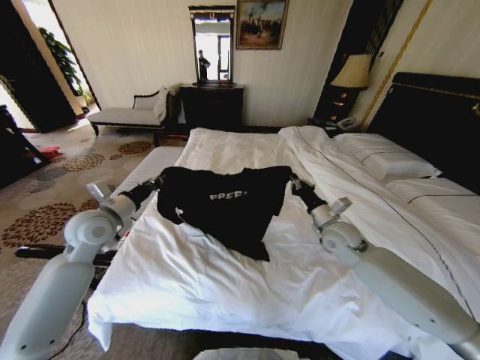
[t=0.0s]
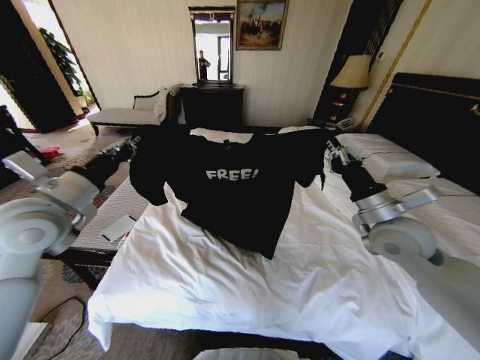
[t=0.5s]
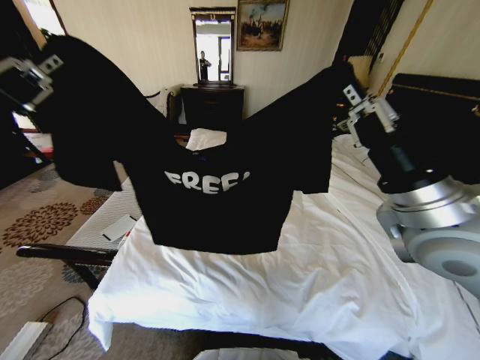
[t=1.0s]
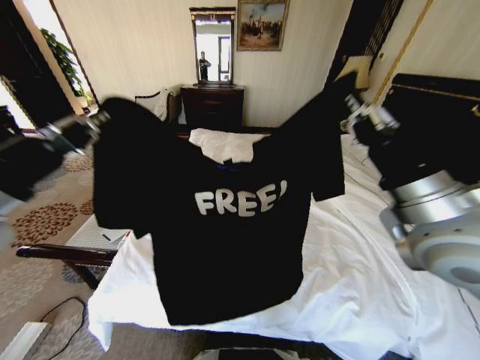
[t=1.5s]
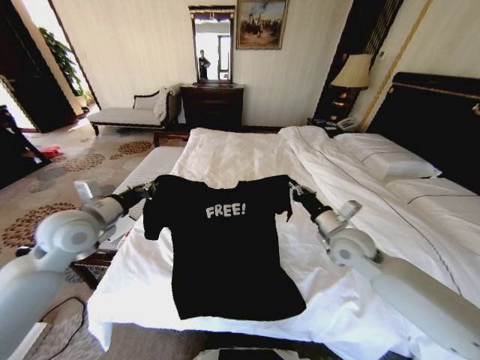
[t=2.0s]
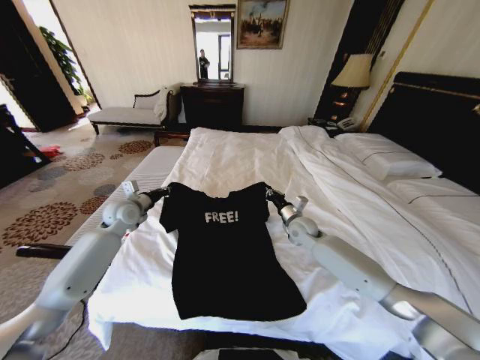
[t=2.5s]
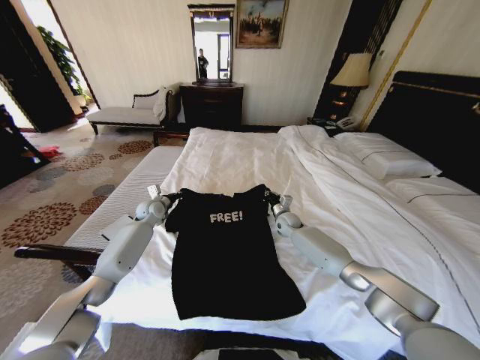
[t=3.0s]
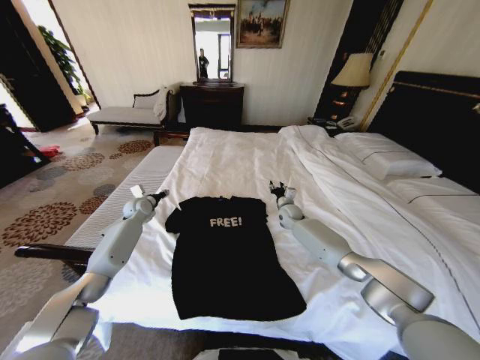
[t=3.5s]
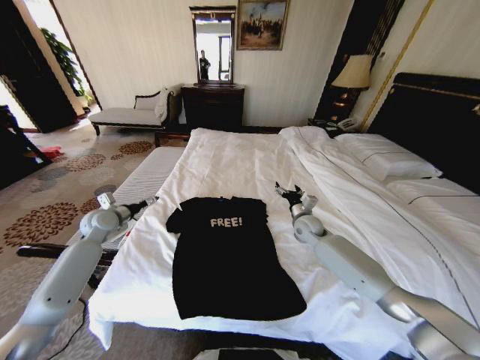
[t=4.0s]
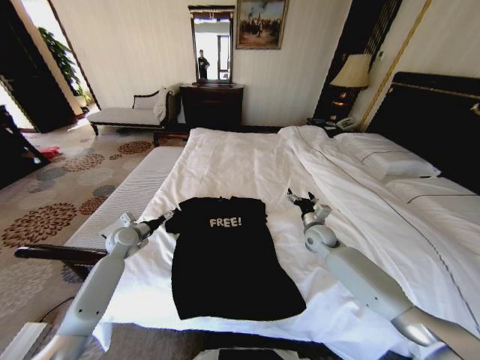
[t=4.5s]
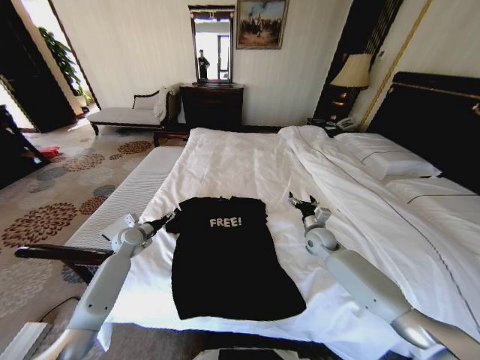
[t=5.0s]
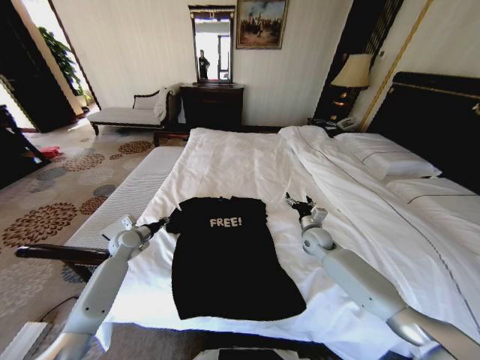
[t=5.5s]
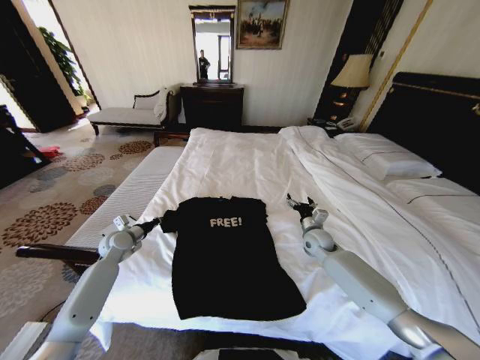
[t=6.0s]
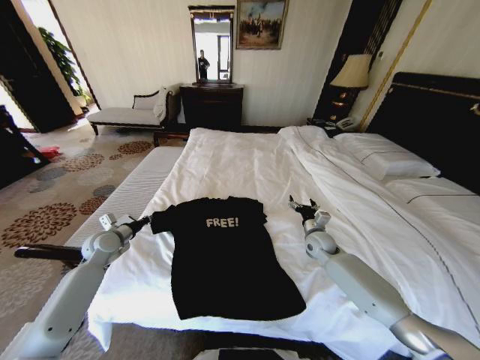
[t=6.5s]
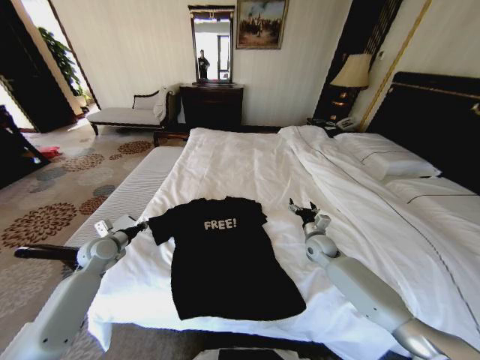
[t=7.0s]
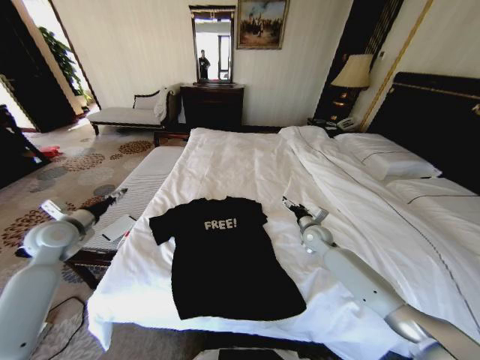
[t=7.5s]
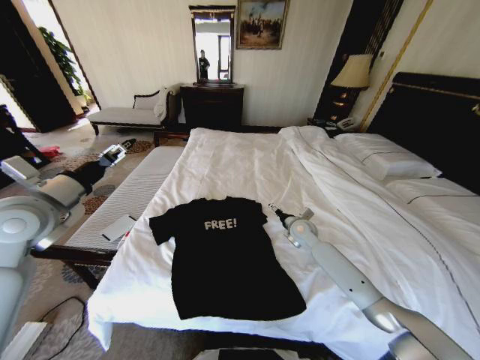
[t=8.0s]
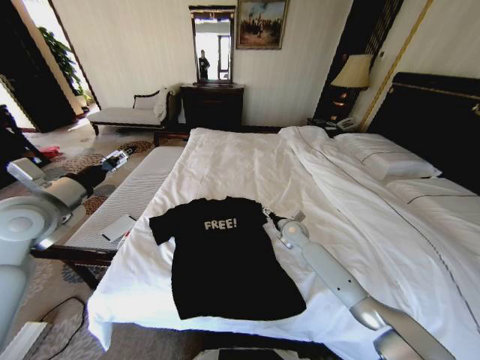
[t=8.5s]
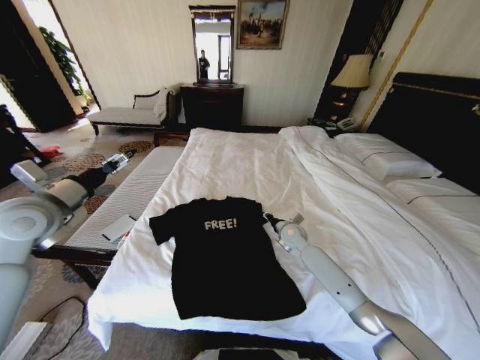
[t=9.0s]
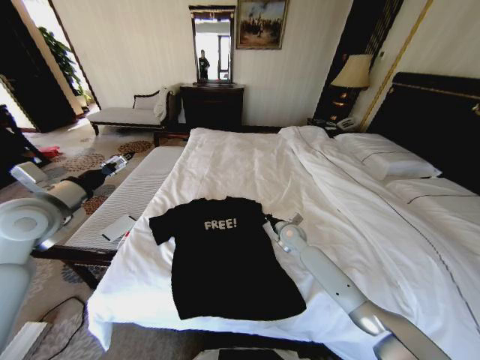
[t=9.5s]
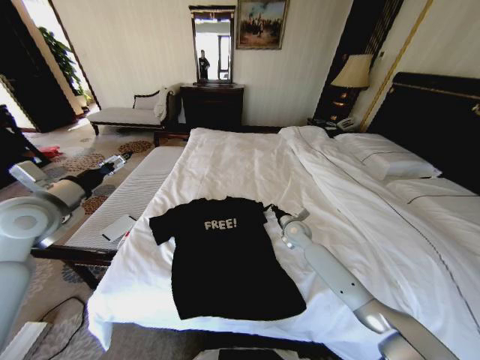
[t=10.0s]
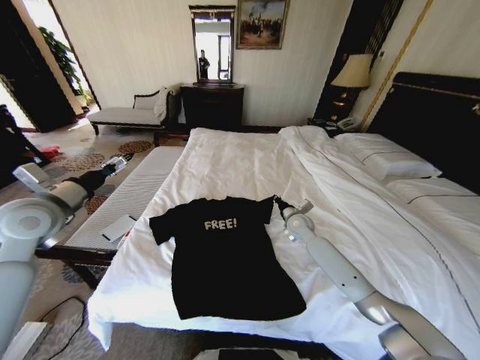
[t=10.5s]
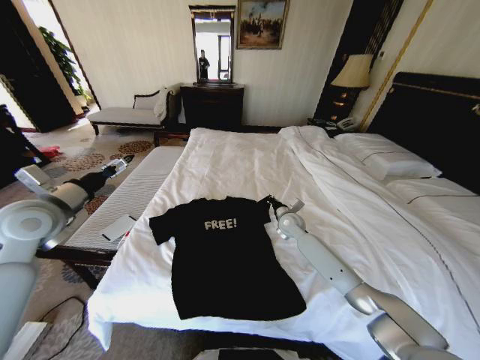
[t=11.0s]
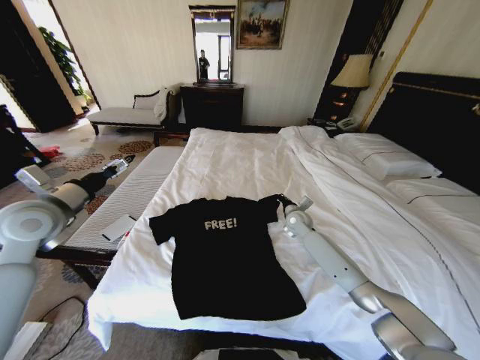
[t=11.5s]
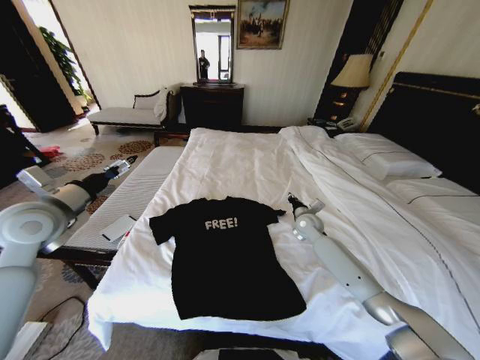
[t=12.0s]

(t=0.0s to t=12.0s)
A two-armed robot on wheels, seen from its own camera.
Task of the whole recording: Fold the clothes on the bed.
t=0.0s - t=2.0s: The right gripper moves approximately 20 cm upward and comes back. The left gripper goes upward and returns, approximately 20 cm each way.
t=2.0s - t=4.0s: The right gripper moves forward and downward, about 15 cm, and opens. Meanwhile the left gripper moves downward, forward and to the left, approximately 20 cm, and opens.
t=4.0s - t=6.0s: The left gripper shifts about 10 cm downward, and closes up. Meanwhile the right gripper moves some 5 cm.
t=6.0s - t=8.0s: The left gripper travels upward and backward by some 30 cm, and opens. The right gripper changes place by about 5 cm.
t=8.0s - t=10.0s: The right gripper closes its fingers.
t=10.0s - t=12.0s: The right gripper shifts by roughly 5 cm.

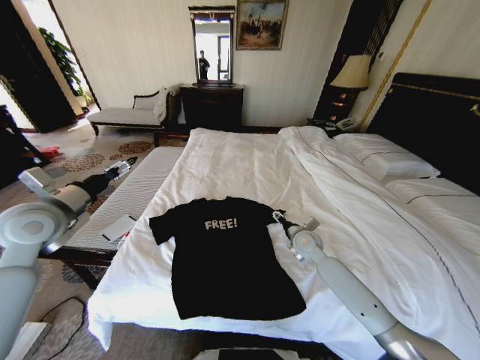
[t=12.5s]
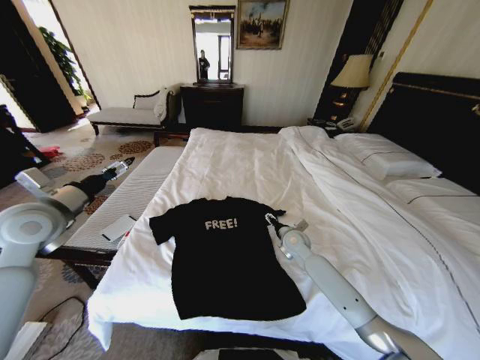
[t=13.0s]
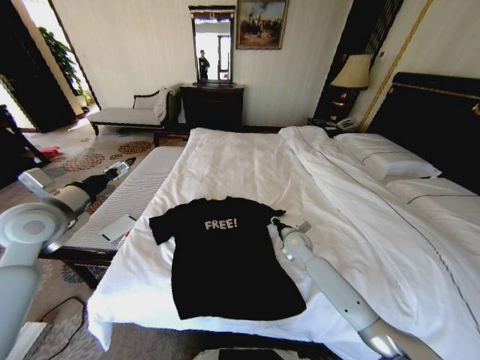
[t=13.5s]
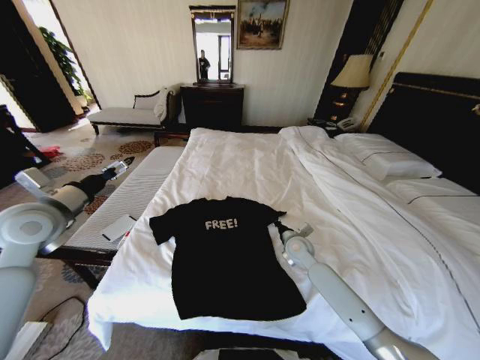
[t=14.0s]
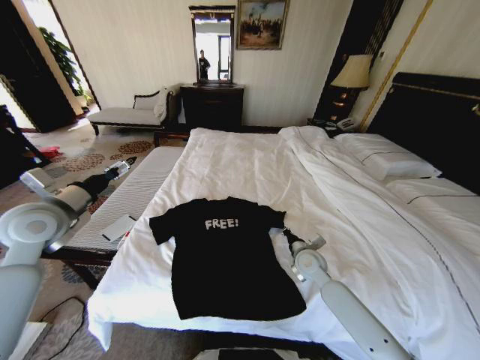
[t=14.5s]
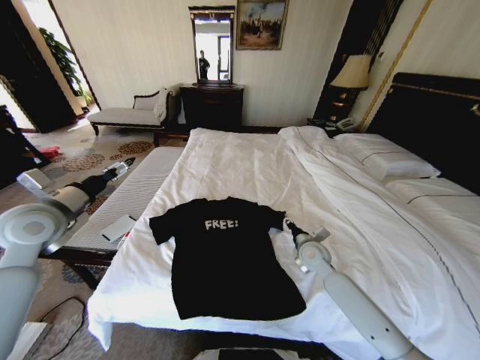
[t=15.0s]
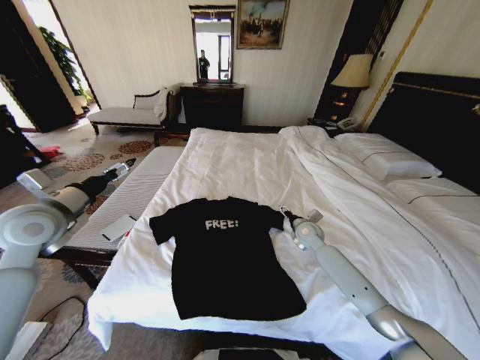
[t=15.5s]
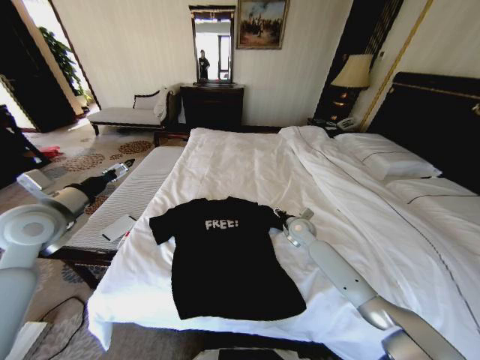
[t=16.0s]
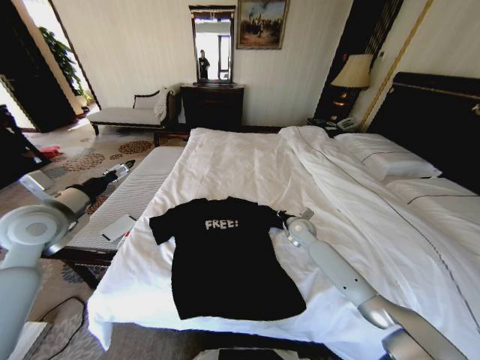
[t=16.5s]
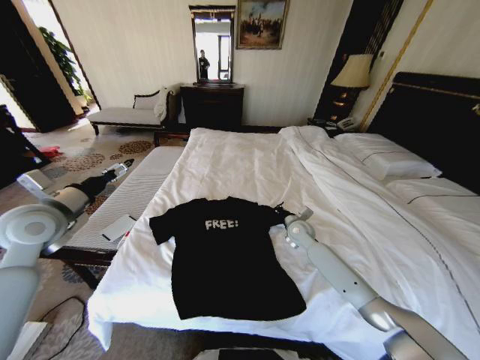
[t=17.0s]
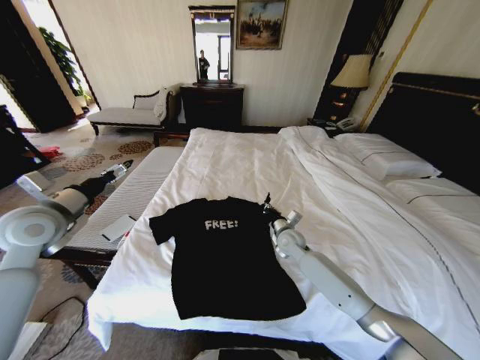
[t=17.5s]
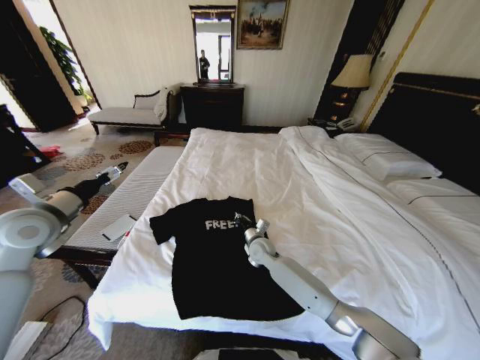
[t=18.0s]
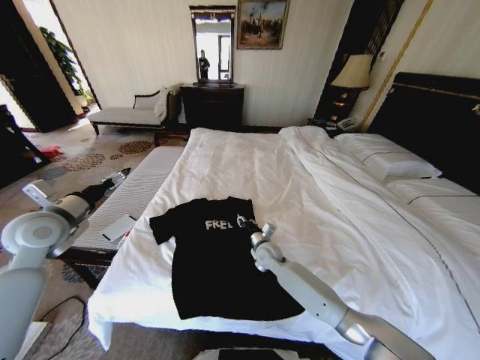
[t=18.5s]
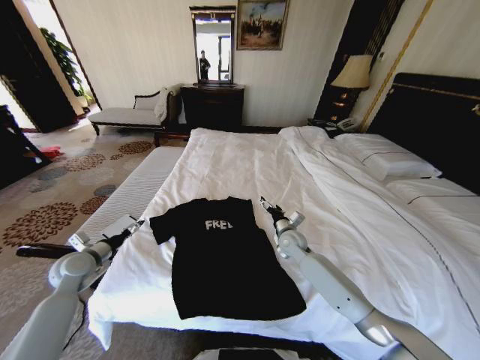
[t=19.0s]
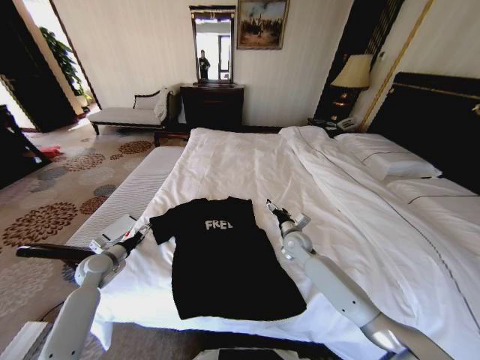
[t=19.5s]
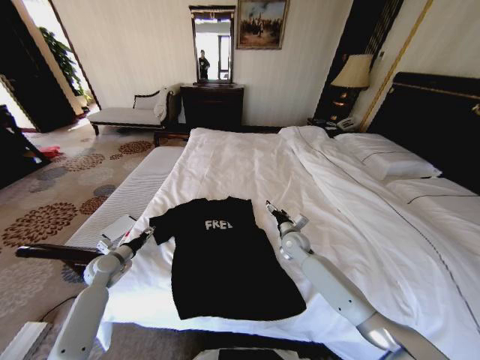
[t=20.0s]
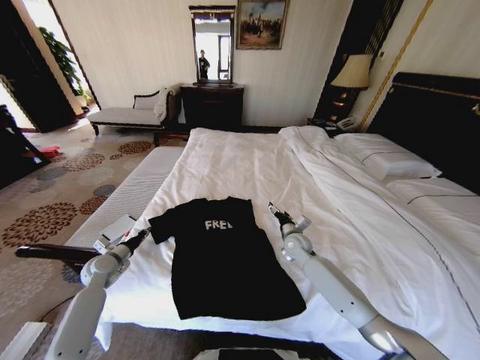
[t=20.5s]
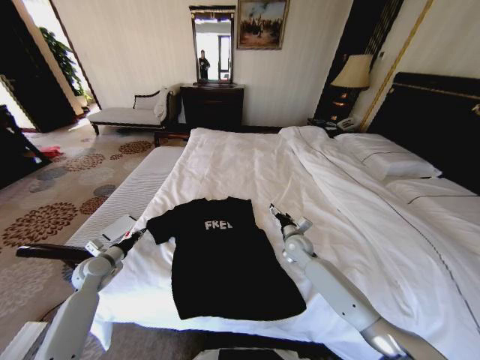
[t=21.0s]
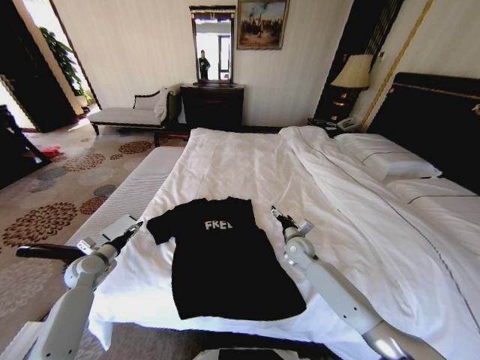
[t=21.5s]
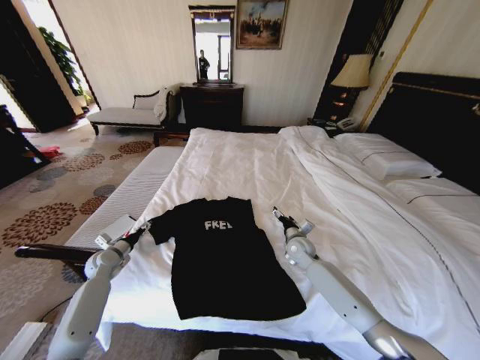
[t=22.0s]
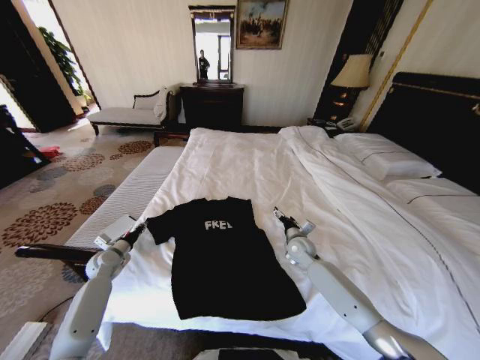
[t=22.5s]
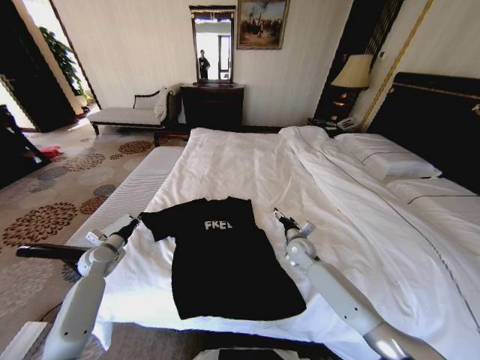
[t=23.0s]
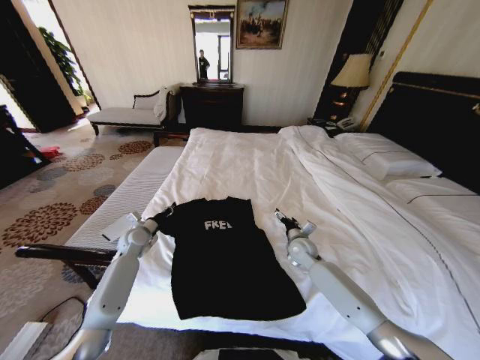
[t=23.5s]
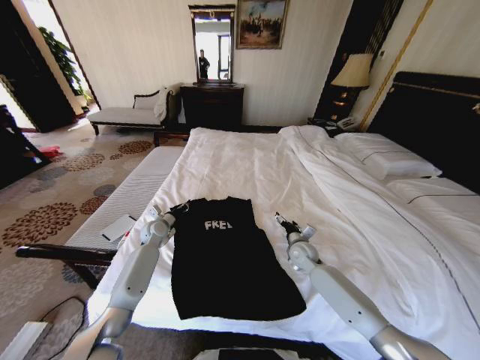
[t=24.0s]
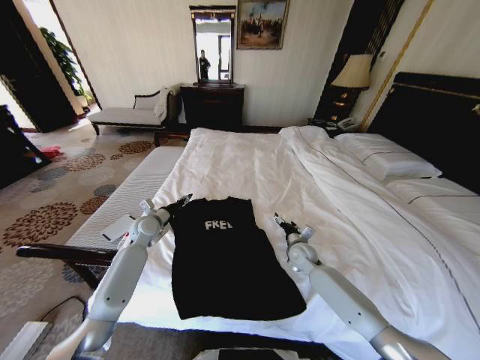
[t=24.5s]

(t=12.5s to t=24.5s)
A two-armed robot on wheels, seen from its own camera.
Task of the whole recording: Fold the clothes on the bed.
t=12.5s - t=14.5s: The right gripper is displaced backward by roughly 5 cm, and closes its fingers.
t=14.5s - t=16.5s: The right gripper heads forward, covering roughly 10 cm, and opens, then closes once more.
t=16.5s - t=18.5s: The right gripper shifts about 15 cm to the left, backward and downward.
t=18.5s - t=20.5s: The left gripper shifts roughly 25 cm downward, and closes. Meanwhile the right gripper goes about 10 cm to the right, and opens up.
t=20.5s - t=22.5s: The left gripper opens, then closes again.
t=22.5s - t=24.5s: The left gripper shifts some 20 cm to the right, upward and forward.

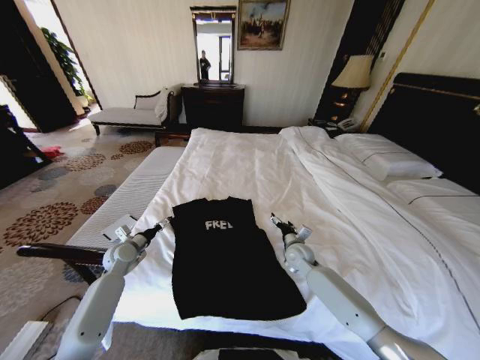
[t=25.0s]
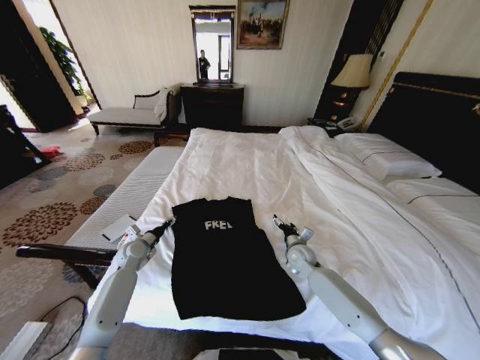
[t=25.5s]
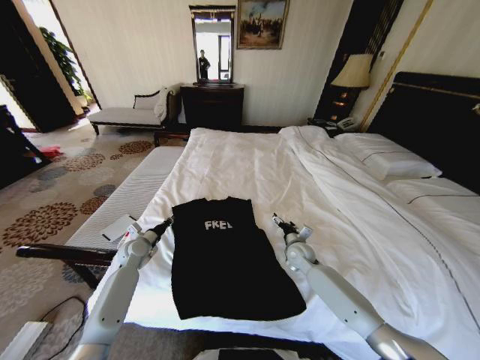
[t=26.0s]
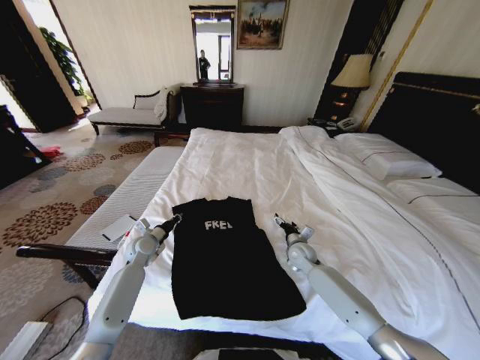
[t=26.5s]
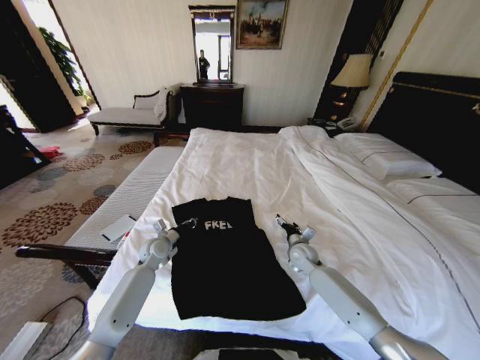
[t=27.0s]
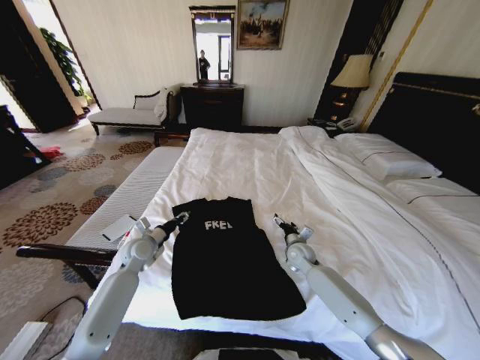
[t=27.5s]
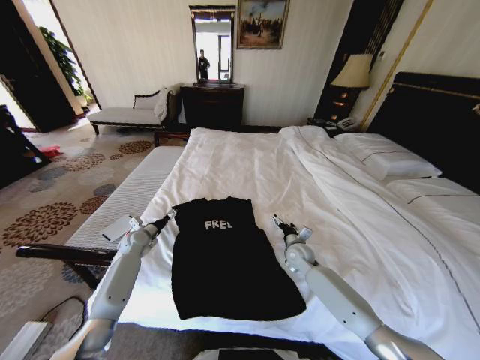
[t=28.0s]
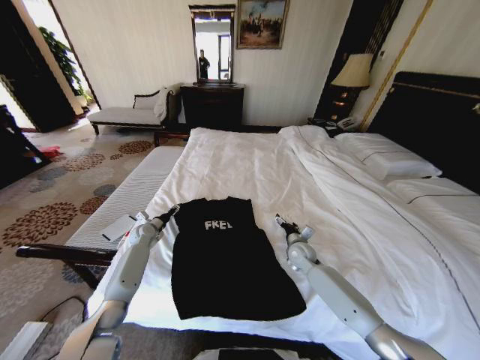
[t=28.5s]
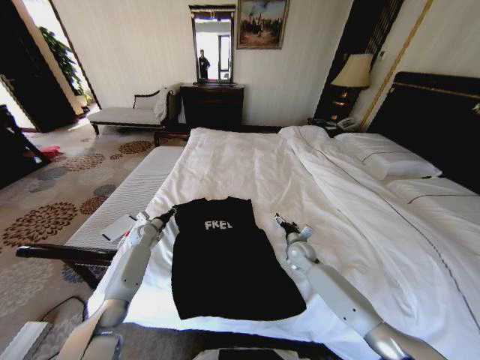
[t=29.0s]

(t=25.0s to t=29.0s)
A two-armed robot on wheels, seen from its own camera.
Task of the whole recording: Fold the clothes on the bed.
t=25.0s - t=27.0s: The left gripper heads to the right, covering roughly 10 cm, and closes.
t=27.0s - t=29.0s: The left gripper travels forward and to the left by roughly 10 cm, and opens and closes again.
